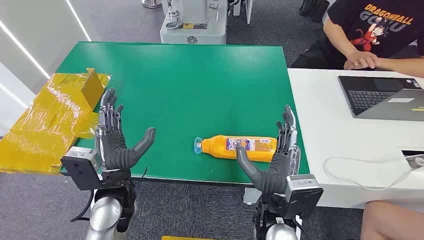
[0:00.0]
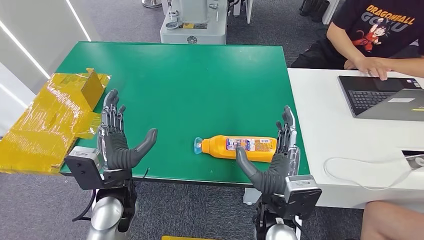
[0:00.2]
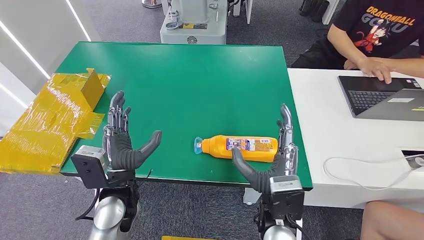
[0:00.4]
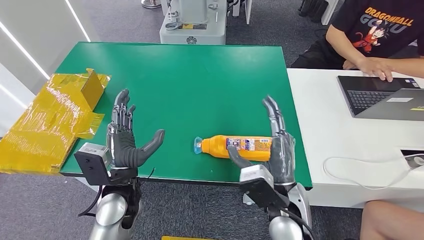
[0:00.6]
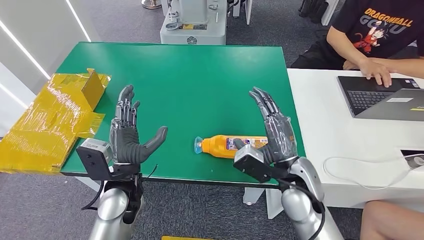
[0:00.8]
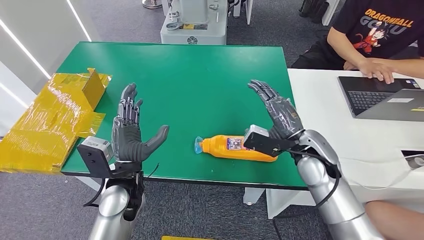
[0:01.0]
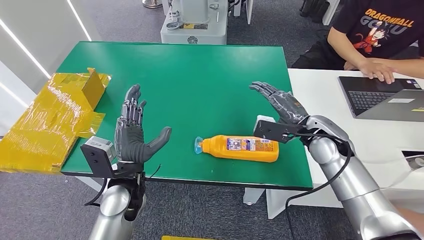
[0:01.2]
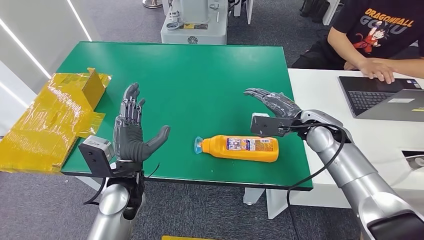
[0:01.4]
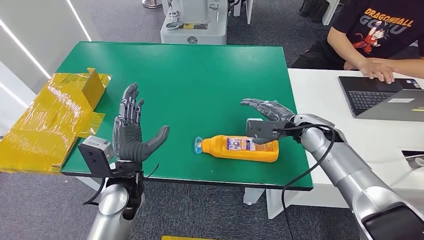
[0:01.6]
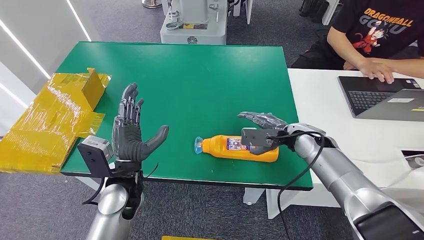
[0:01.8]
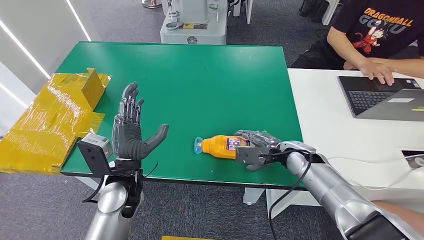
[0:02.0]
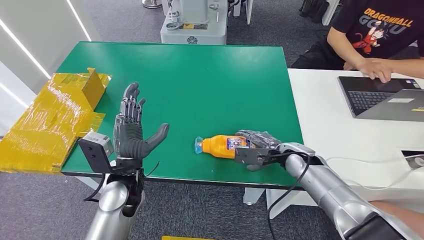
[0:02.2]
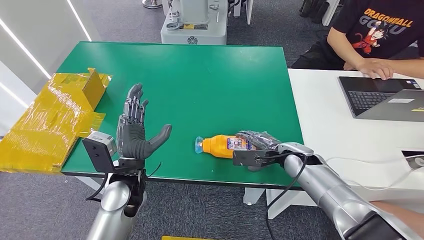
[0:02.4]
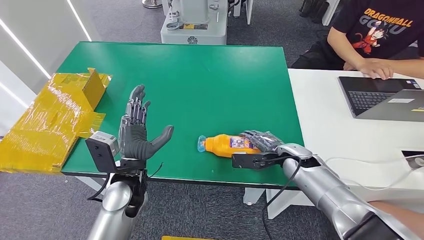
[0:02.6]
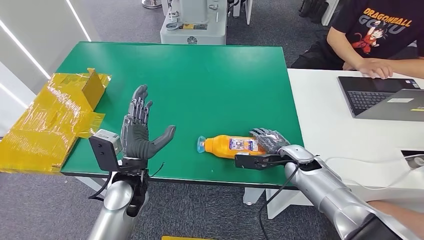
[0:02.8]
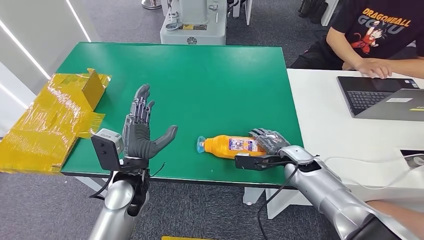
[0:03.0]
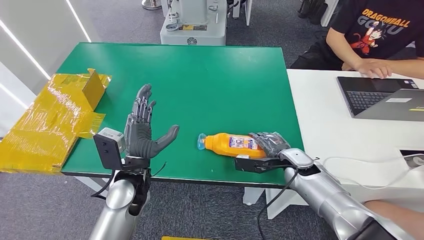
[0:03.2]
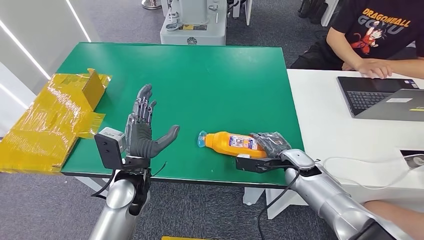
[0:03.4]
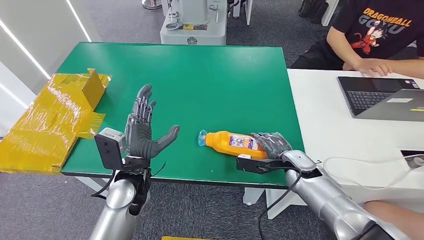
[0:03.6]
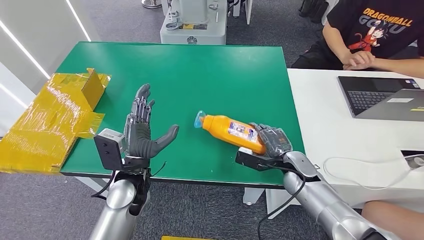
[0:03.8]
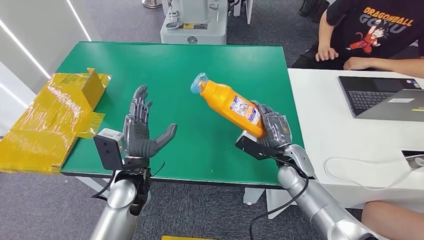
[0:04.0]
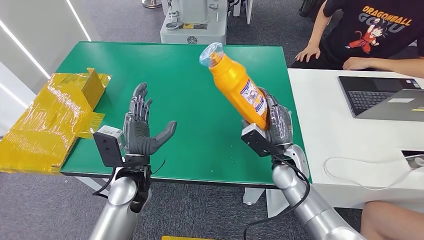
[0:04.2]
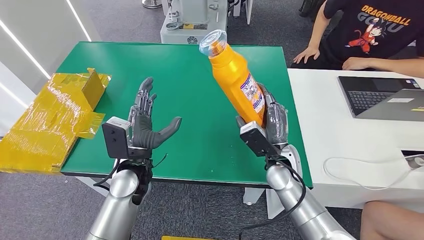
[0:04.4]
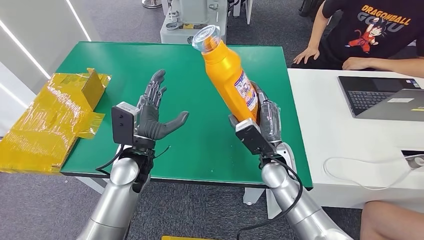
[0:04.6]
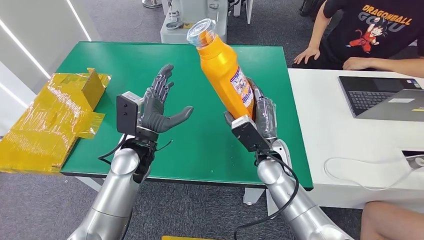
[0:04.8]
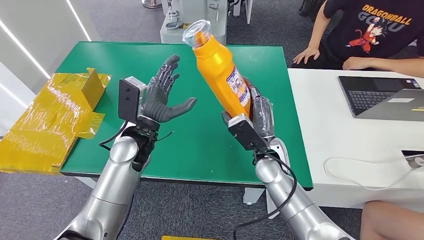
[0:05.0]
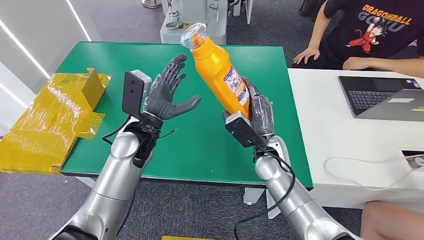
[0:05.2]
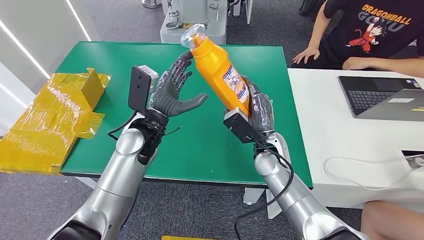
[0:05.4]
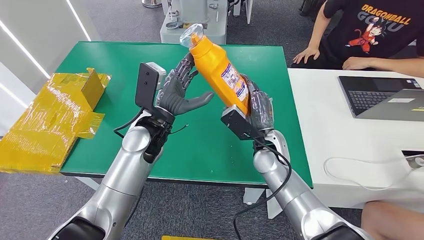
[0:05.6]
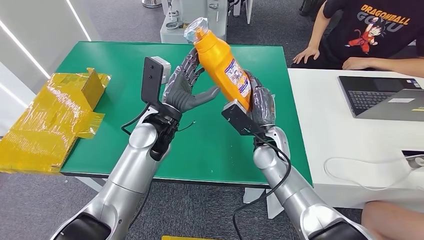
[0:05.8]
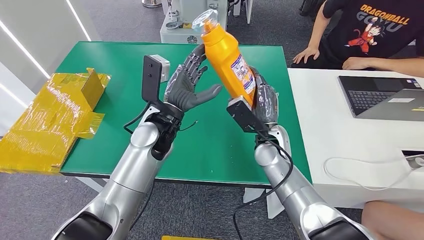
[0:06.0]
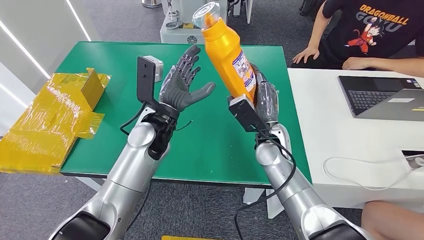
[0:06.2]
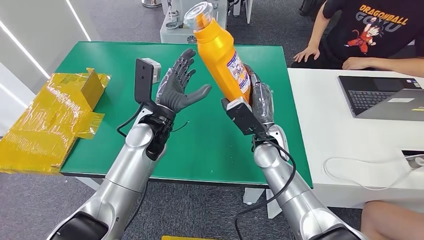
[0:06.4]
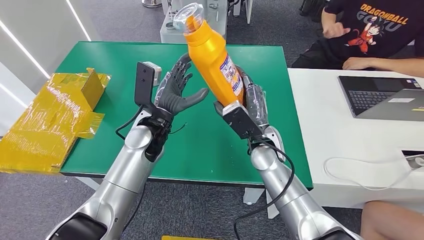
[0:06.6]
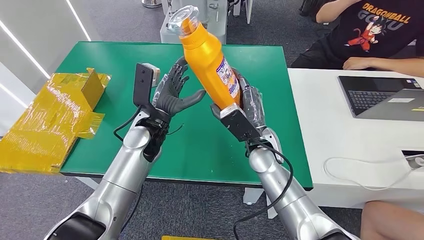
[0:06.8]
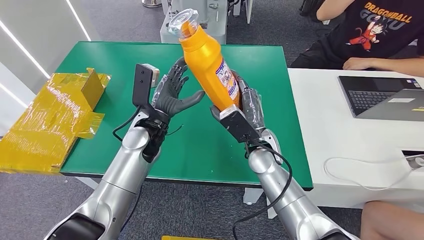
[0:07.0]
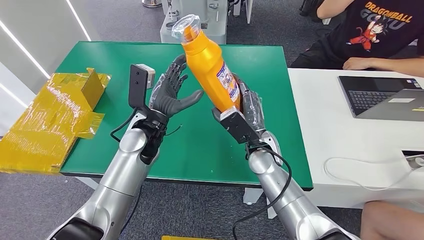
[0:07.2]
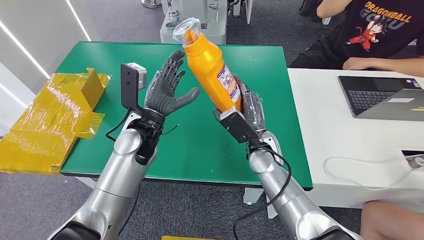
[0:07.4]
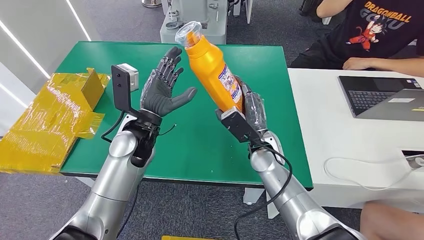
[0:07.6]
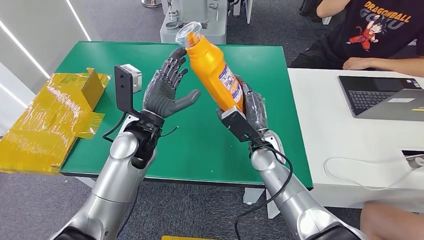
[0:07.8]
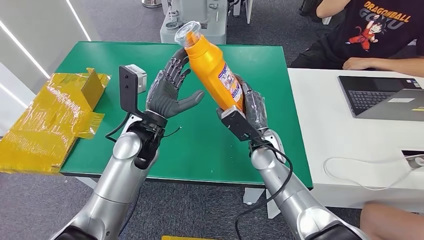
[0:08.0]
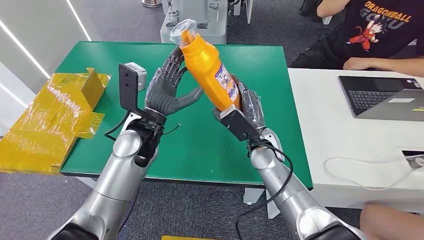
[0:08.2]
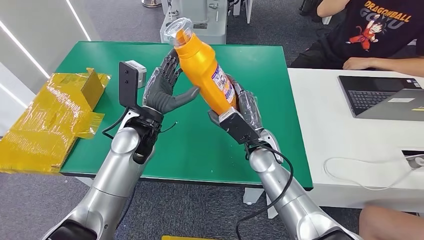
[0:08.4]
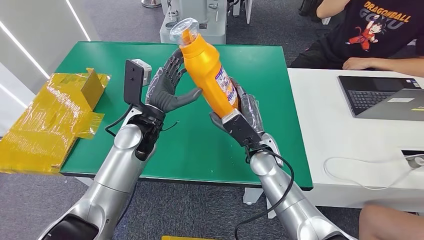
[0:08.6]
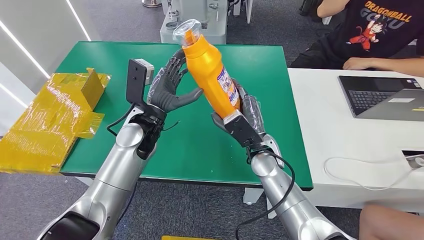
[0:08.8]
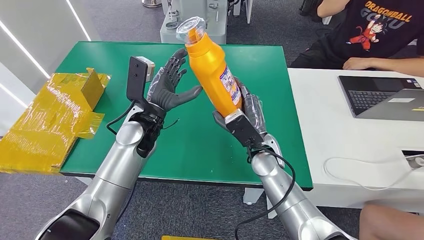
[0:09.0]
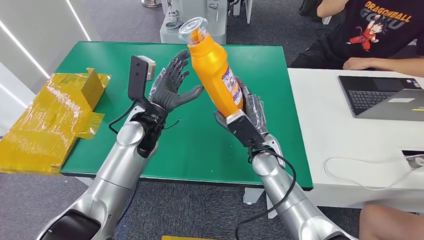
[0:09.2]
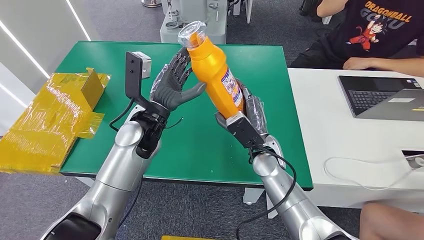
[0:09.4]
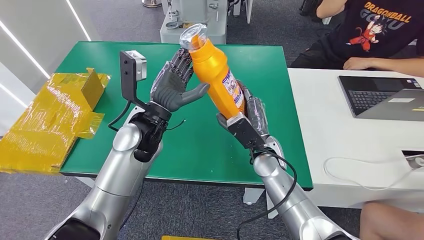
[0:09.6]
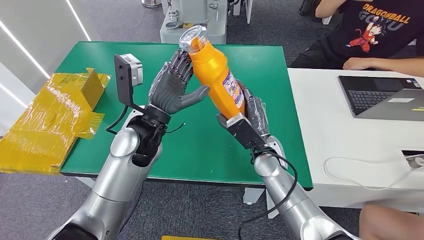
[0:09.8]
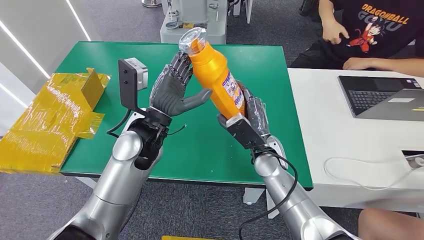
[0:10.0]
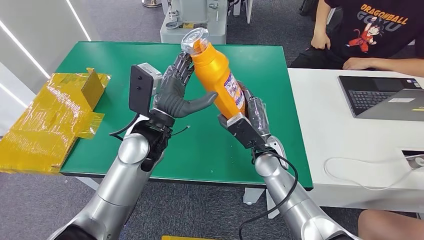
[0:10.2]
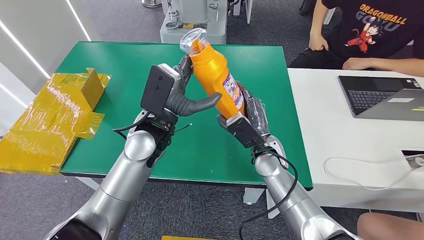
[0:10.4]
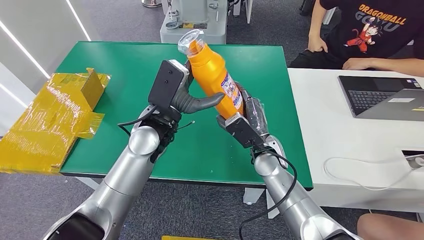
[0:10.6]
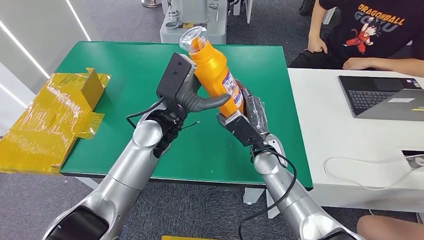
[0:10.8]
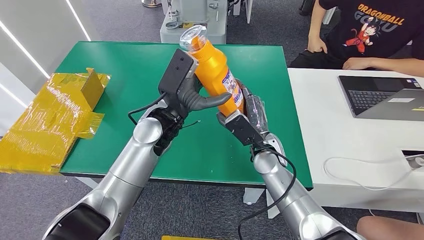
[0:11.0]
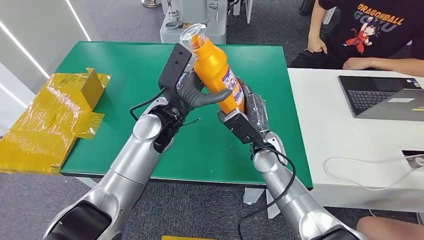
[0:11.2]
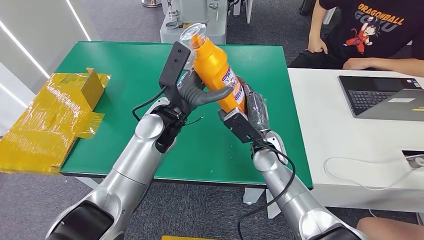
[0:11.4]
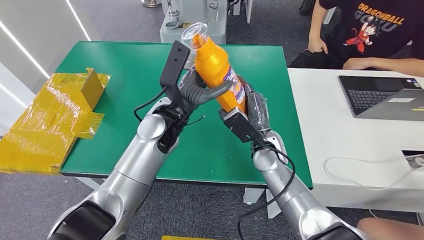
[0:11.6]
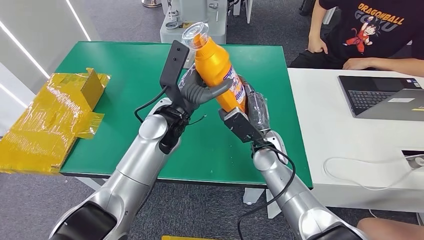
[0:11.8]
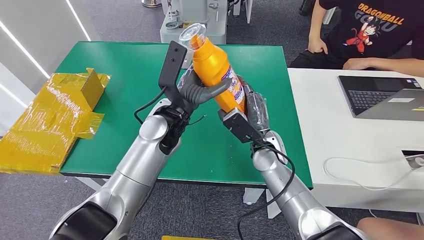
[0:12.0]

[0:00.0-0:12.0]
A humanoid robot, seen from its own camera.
Step, 0:00.0 to 0:04.2: Pick up the bottle from the table.
0:01.6 to 0:03.0: The right hand goes roughly 10 cm downward.
0:03.0 to 0:04.4: The right hand is displaced to the left by some 10 cm.
0:04.4 to 0:06.0: The left hand moves forward and upward, some 10 cm; the right hand changes place by roughly 5 cm.
0:07.6 to 0:09.0: The hands move only a little.
0:09.0 to 0:10.4: The left hand moves approximately 5 cm.
0:10.4 to 0:12.0: There are only small adjustments of the hands.

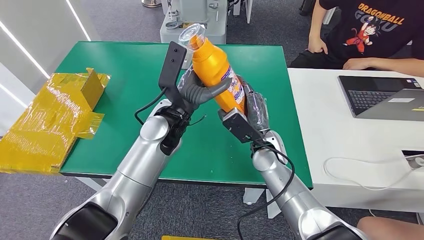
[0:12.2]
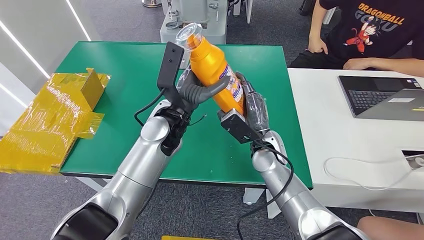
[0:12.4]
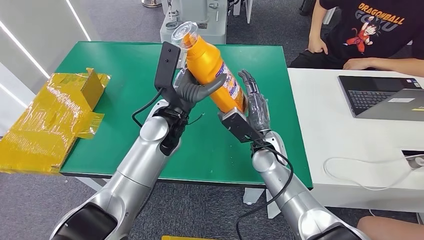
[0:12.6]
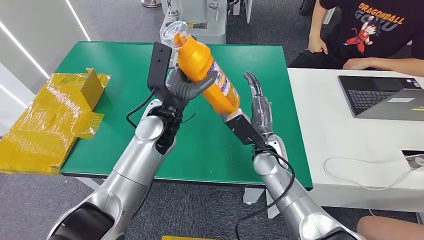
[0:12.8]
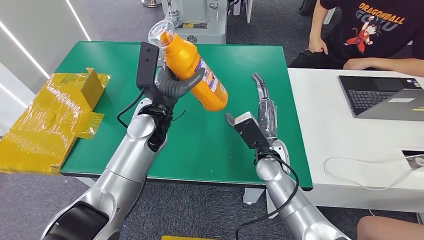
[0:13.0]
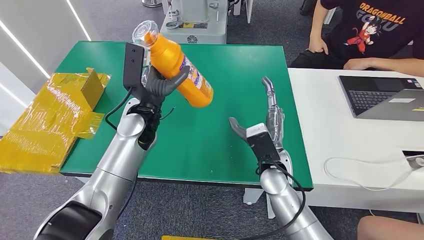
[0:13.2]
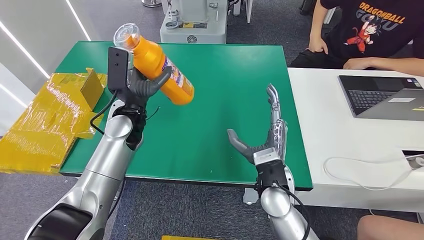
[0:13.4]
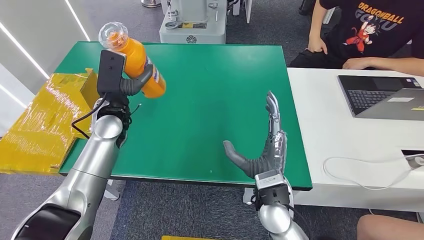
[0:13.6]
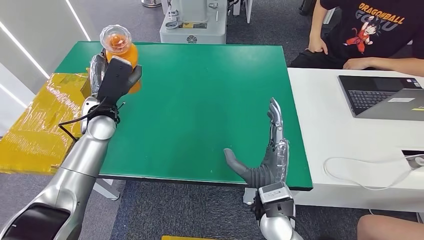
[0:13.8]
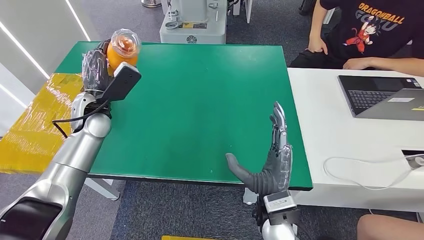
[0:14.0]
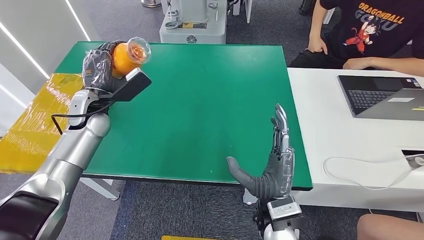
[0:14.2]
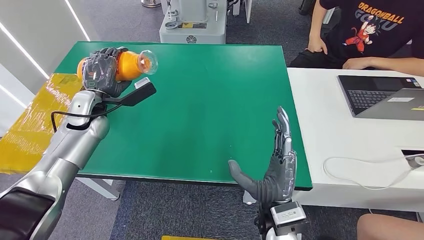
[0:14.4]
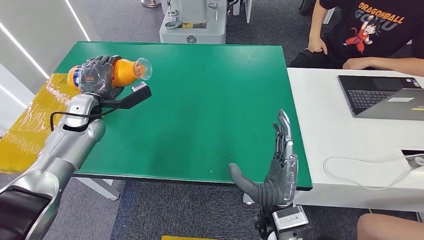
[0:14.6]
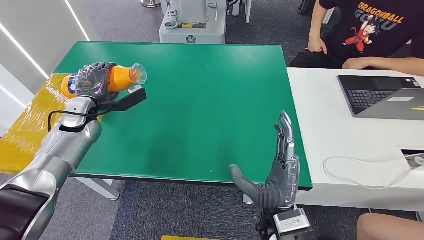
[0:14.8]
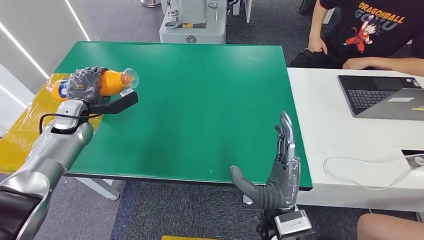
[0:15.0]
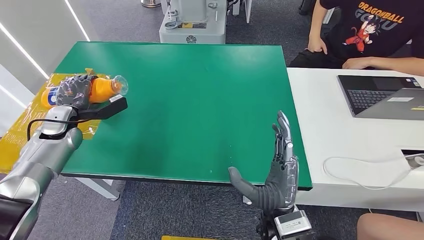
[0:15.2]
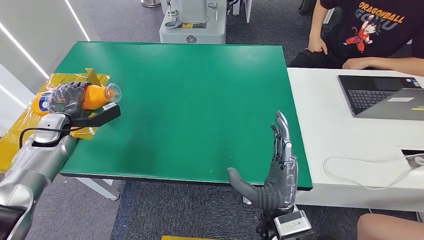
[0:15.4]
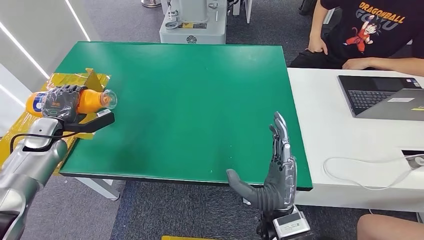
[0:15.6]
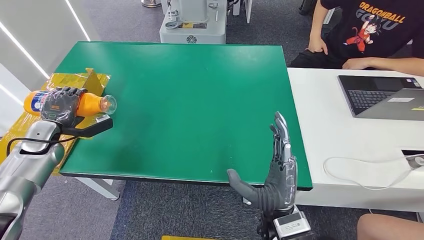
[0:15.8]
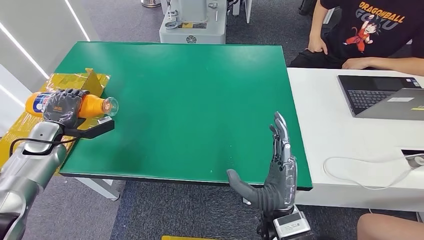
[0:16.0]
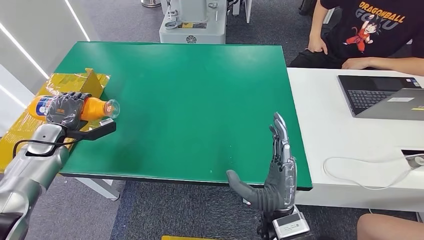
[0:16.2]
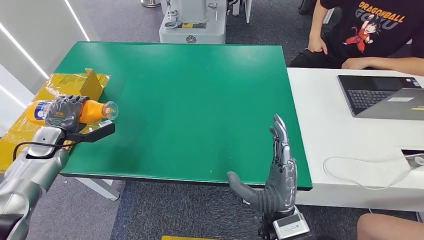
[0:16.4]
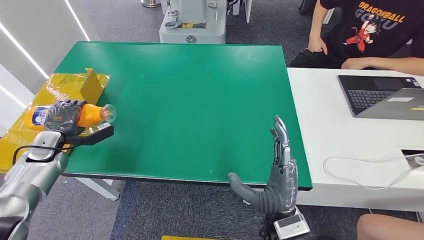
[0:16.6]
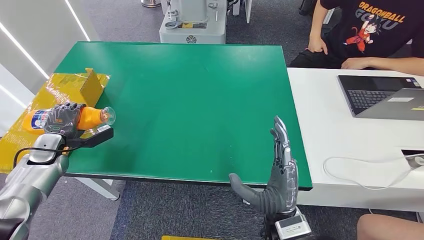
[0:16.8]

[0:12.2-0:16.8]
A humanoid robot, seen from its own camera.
0:13.8 to 0:15.2: The left hand goes some 15 cm to the left.
0:15.2 to 0:16.8: The left hand travels downward, backward and to the left by about 10 cm.
